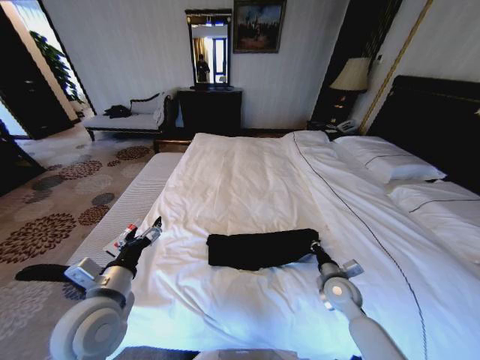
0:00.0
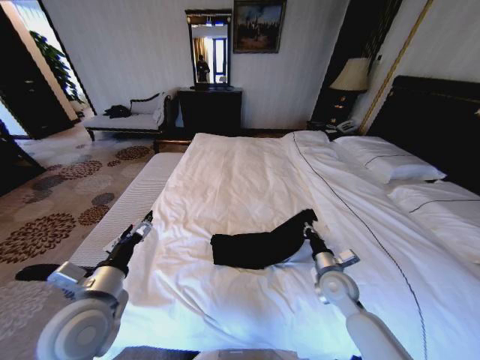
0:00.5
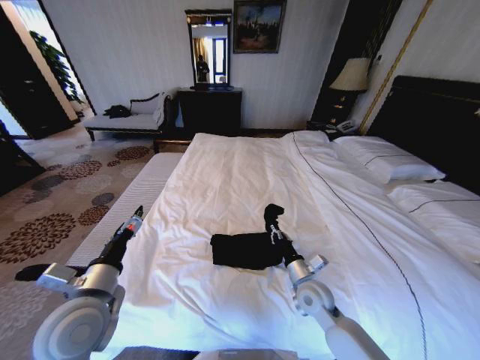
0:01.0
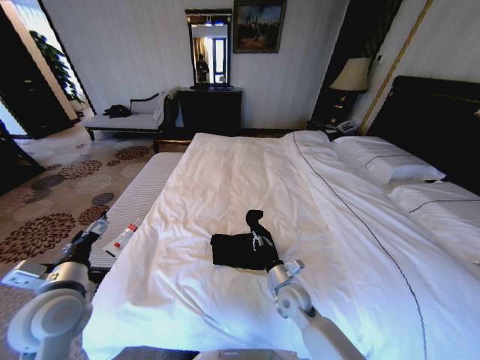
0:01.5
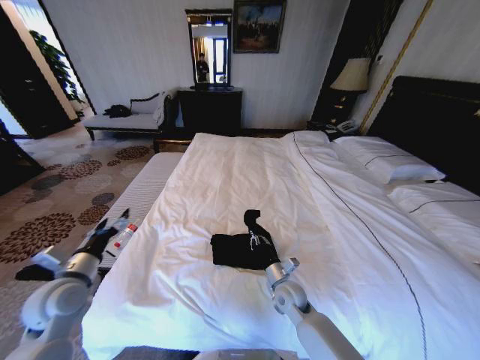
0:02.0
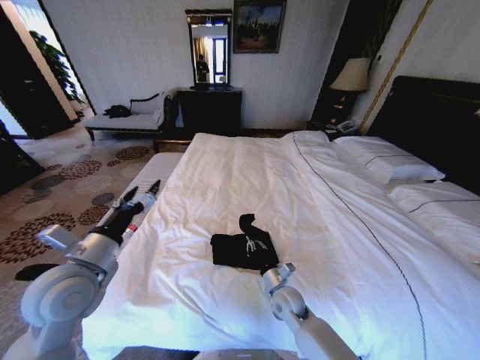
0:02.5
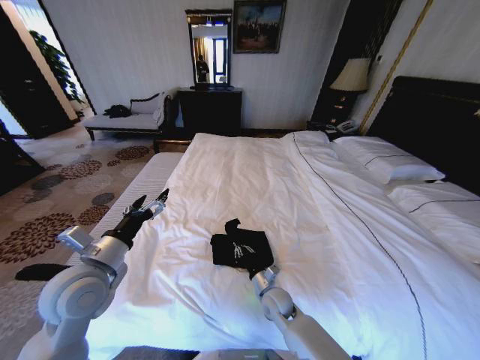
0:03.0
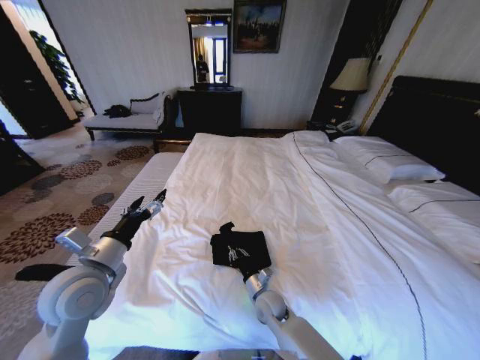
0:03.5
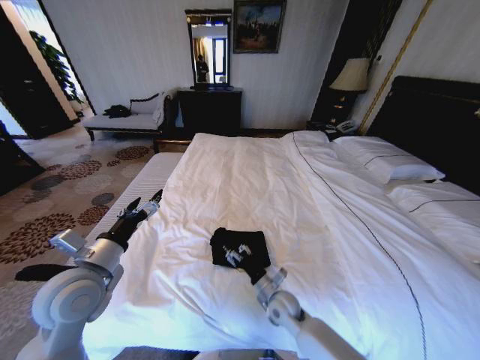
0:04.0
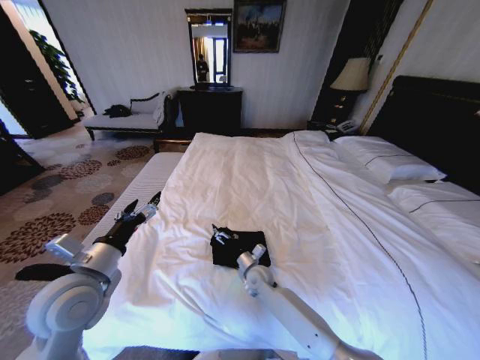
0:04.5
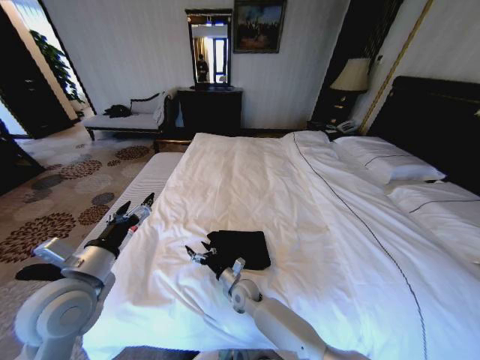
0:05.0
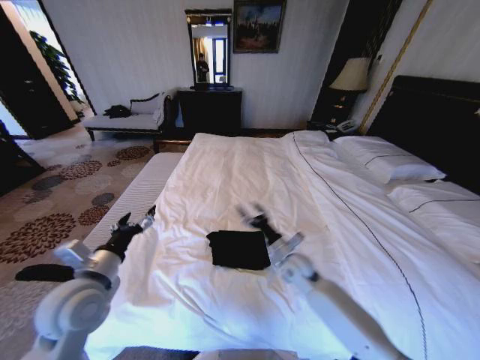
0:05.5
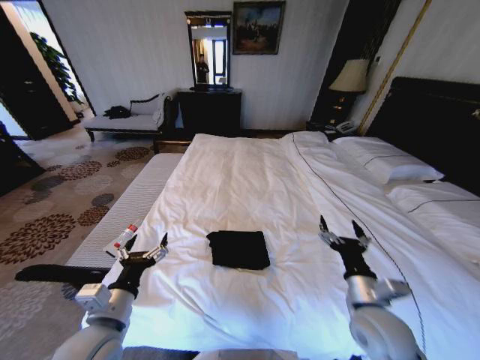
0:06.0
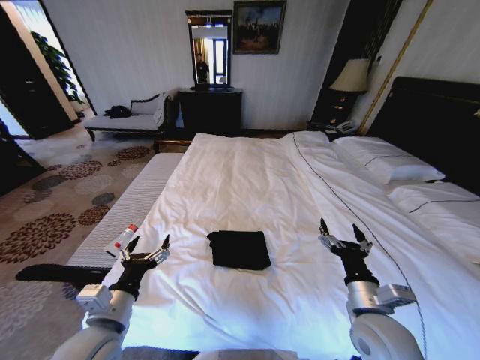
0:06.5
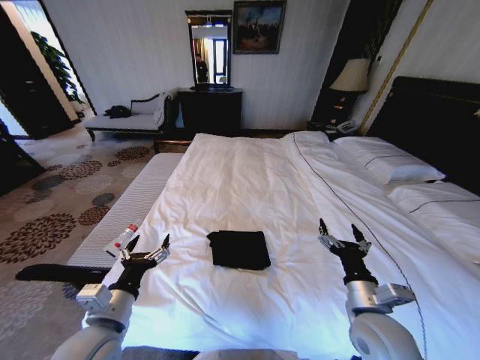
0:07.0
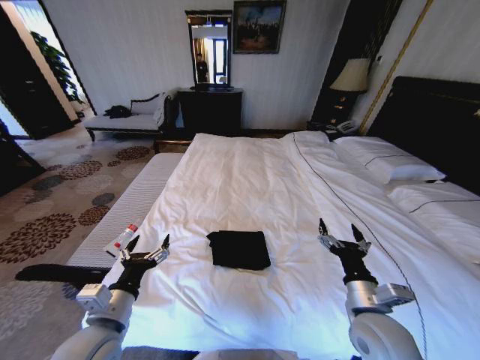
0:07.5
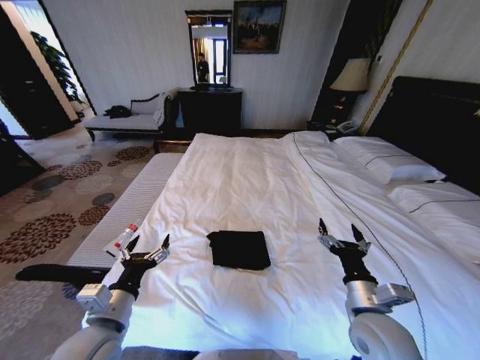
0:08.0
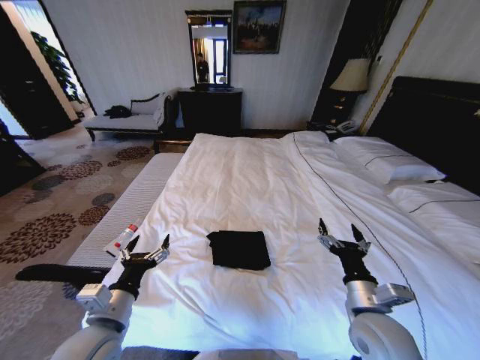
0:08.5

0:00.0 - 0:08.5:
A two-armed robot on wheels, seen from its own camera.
Task of the whole recording: Fold the clothes on the bed.
0:00.0 - 0:02.0: The left gripper travels to the left and forward by some 15 cm, while the right gripper heads to the left, covering roughly 15 cm.
0:02.0 - 0:04.0: The right gripper opens its fingers, while the left gripper moves to the right and upward, roughly 10 cm.
0:04.0 - 0:06.5: The right gripper heads upward, to the right and backward, covering roughly 25 cm, and opens up. Meanwhile the left gripper travels backward and downward by some 10 cm.
0:06.5 - 0:08.5: Both grippers stay about where they are.

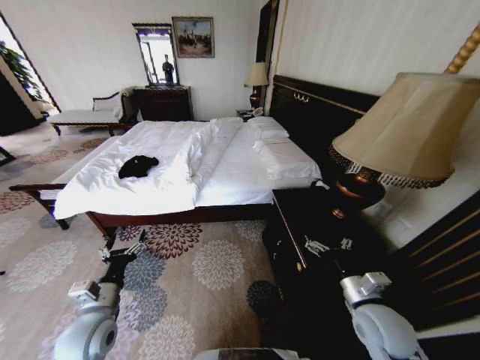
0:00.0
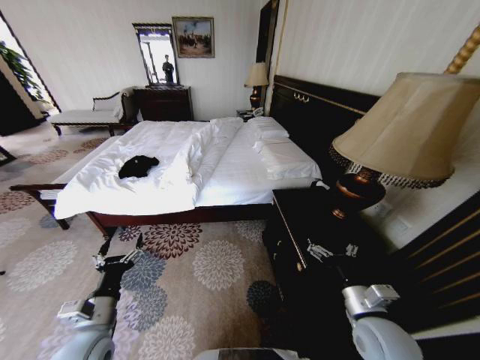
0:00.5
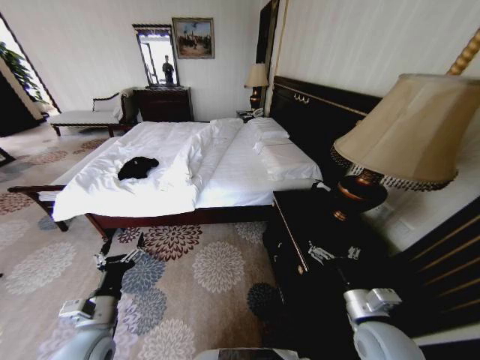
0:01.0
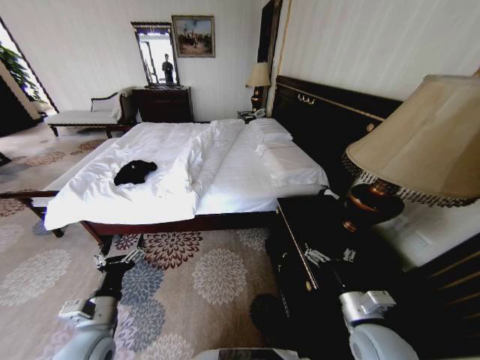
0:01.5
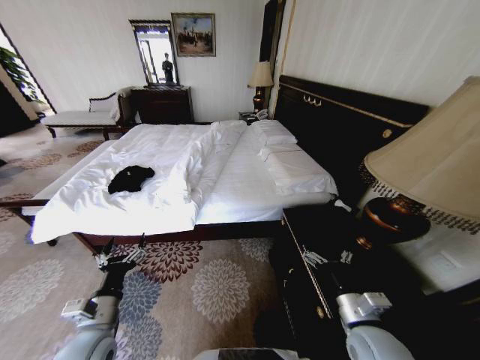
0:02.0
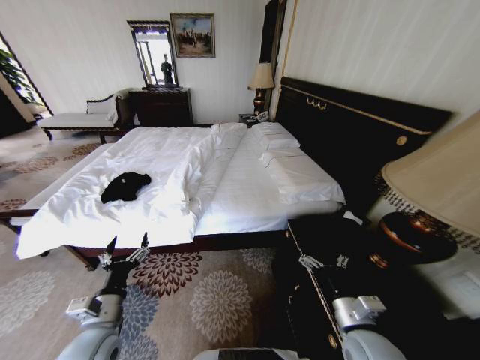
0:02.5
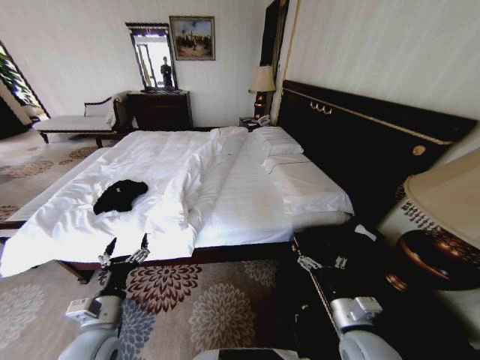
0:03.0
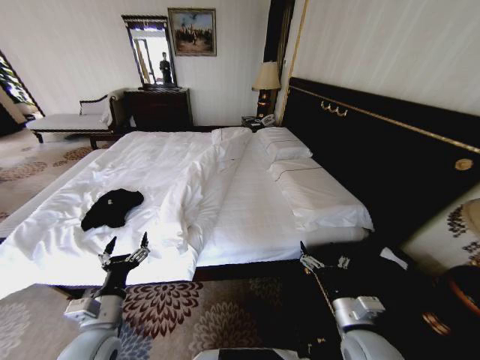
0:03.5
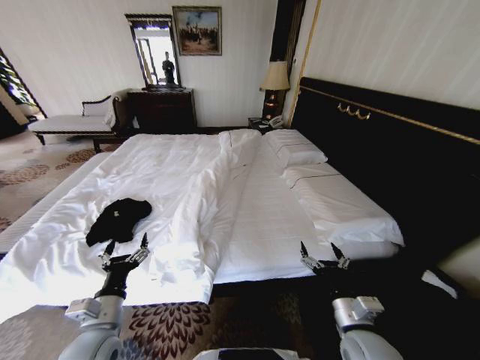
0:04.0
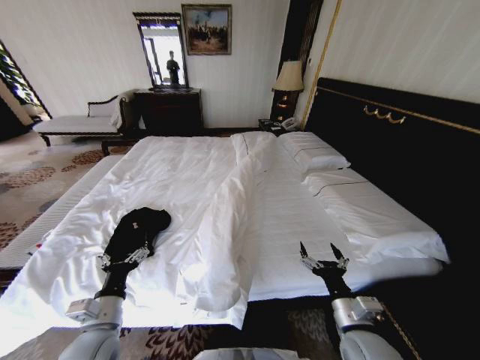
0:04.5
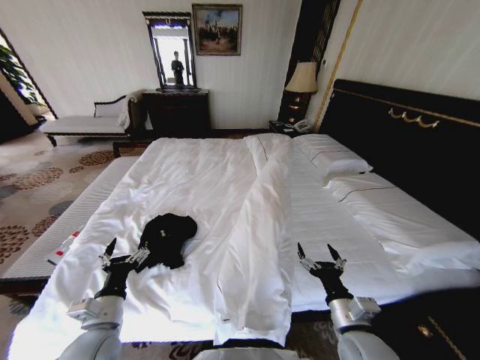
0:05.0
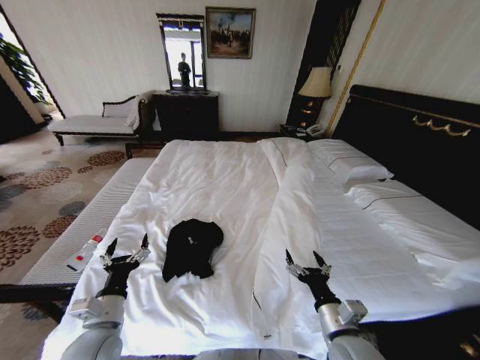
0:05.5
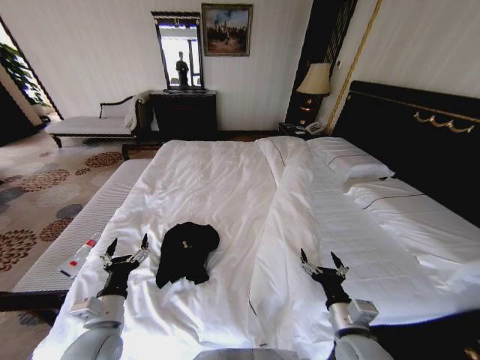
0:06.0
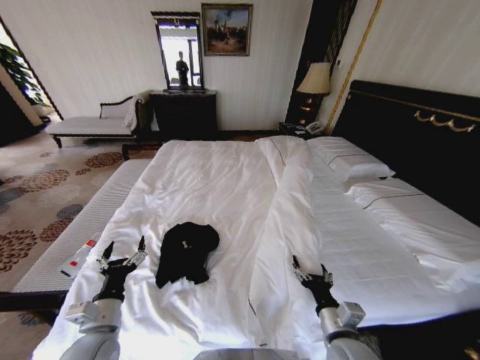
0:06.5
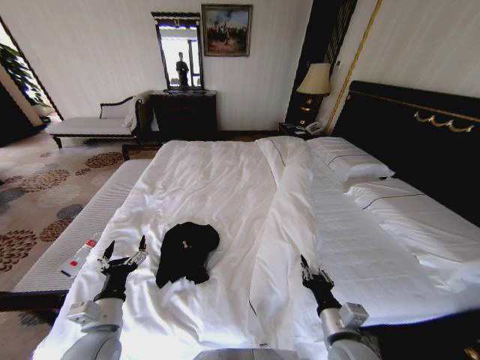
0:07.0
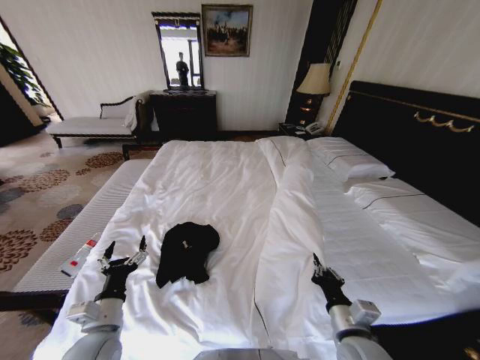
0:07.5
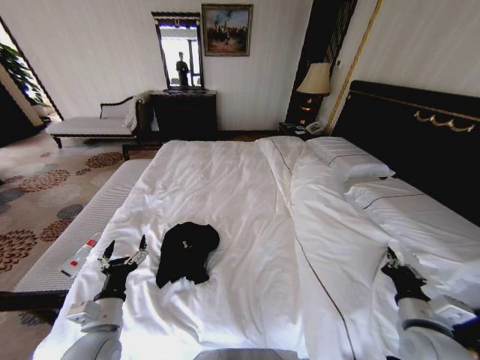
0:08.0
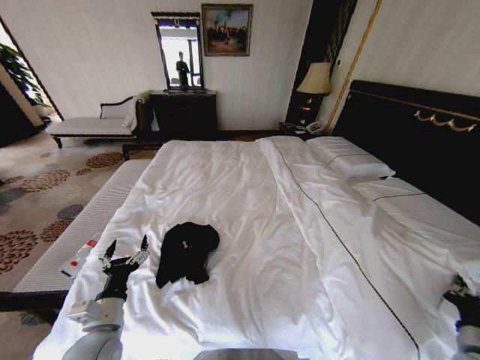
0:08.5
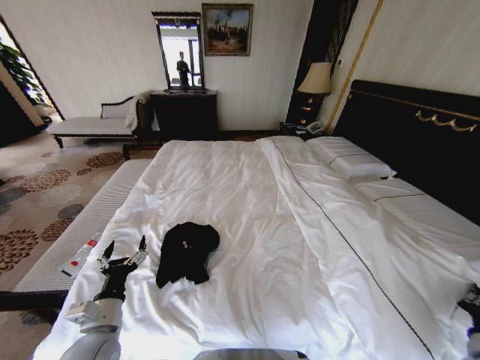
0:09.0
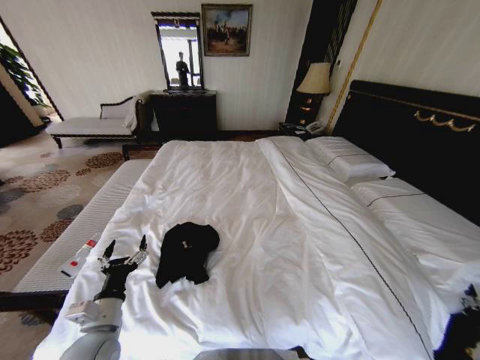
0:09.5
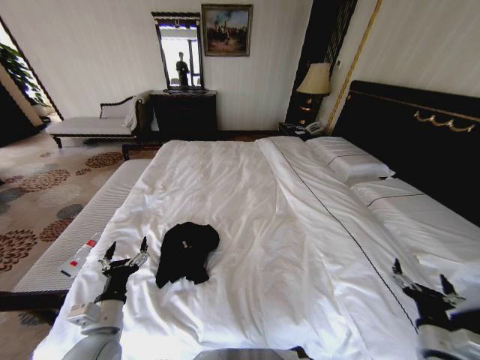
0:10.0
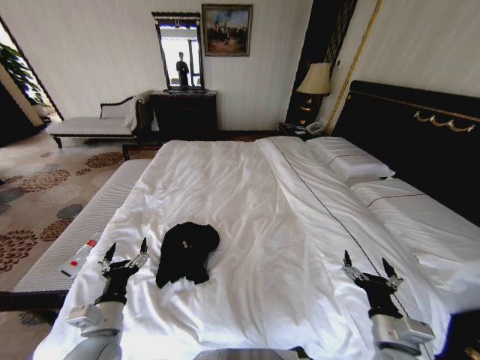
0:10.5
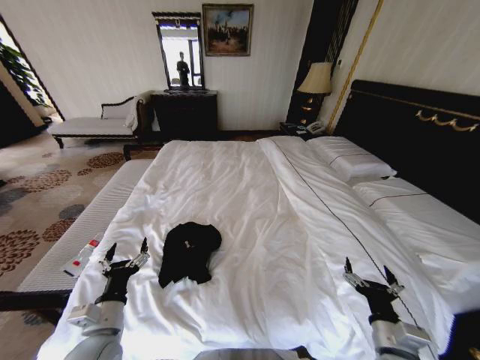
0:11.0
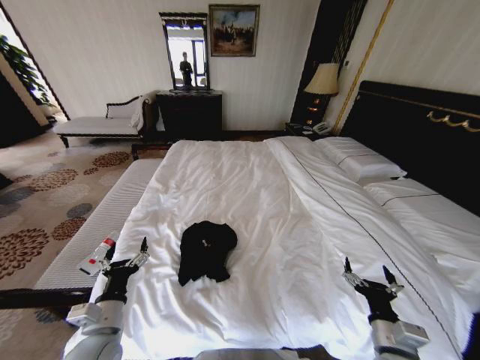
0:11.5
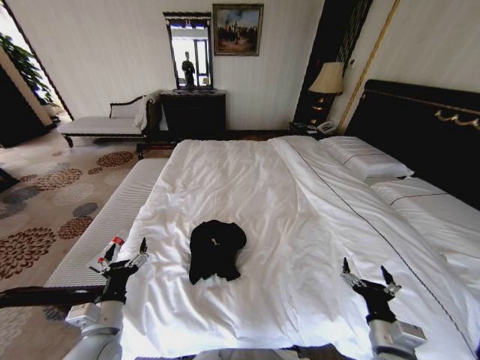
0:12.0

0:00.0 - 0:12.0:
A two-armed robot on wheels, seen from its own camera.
Task of the whole recording: Fold the clothes on the bed.
0:06.0 - 0:08.0: The right gripper shifts about 10 cm to the right, and closes its fingers.
0:08.0 - 0:10.0: The right gripper travels to the right by some 5 cm, and opens its fingers.
0:10.0 - 0:12.0: The right gripper heads to the left, covering roughly 10 cm.

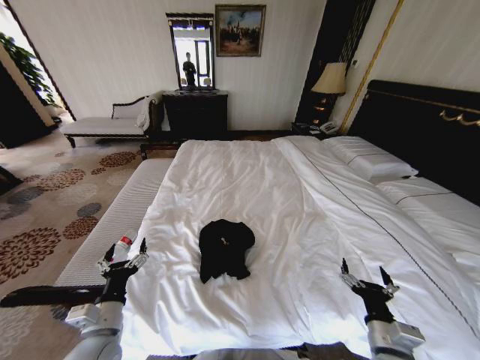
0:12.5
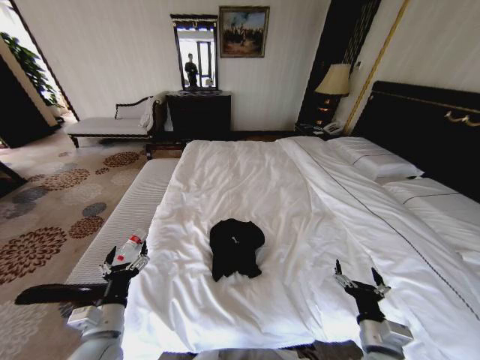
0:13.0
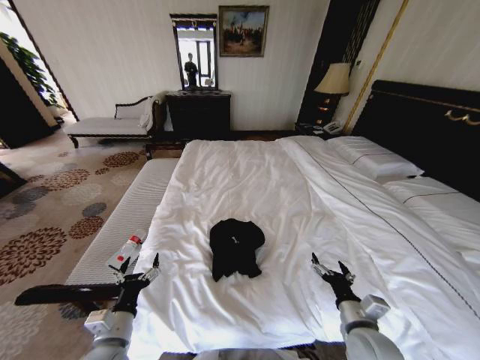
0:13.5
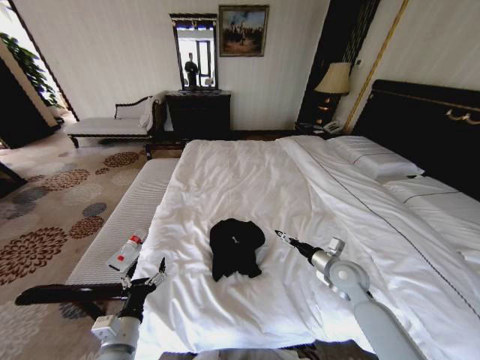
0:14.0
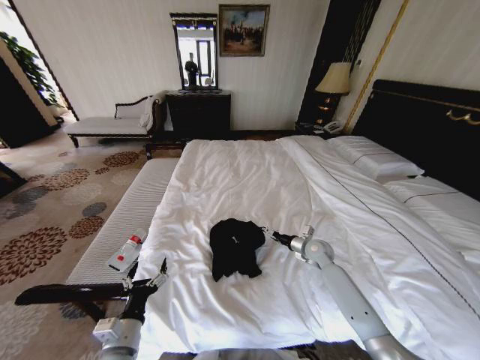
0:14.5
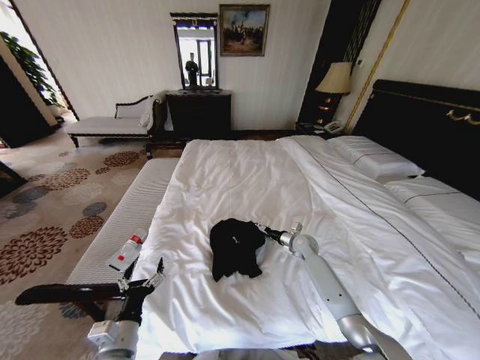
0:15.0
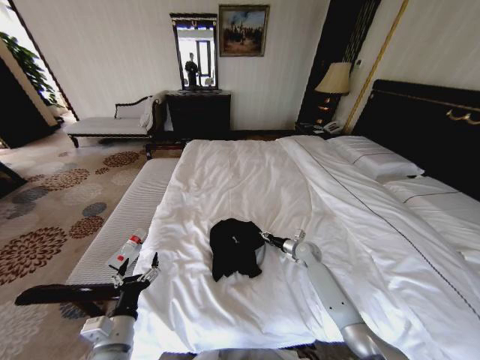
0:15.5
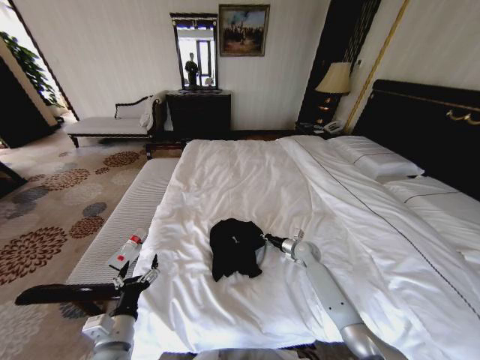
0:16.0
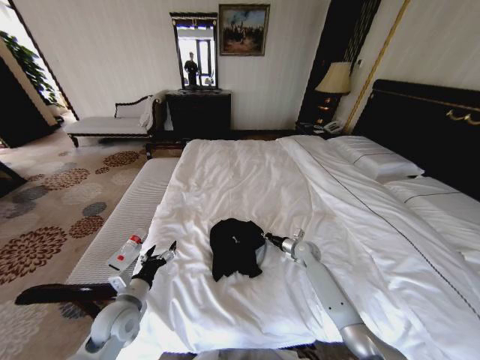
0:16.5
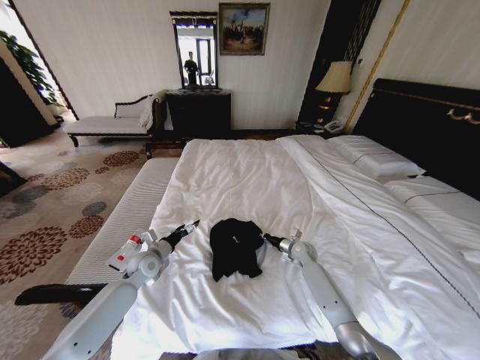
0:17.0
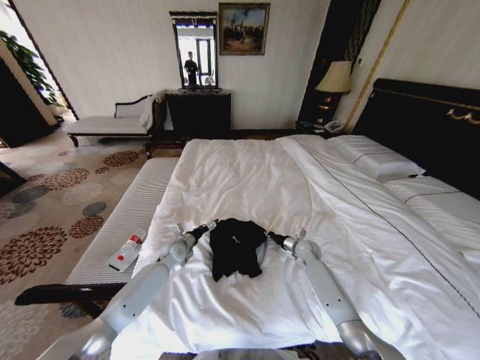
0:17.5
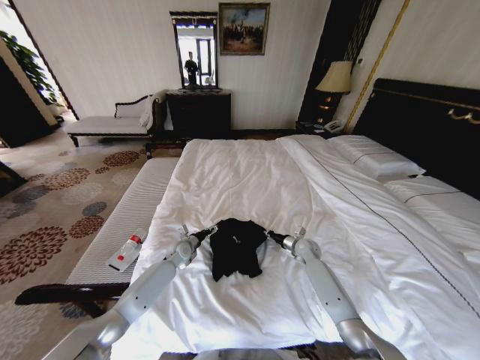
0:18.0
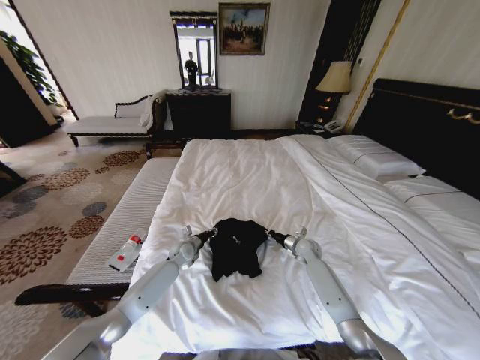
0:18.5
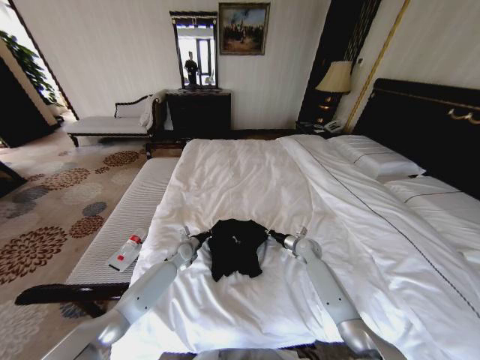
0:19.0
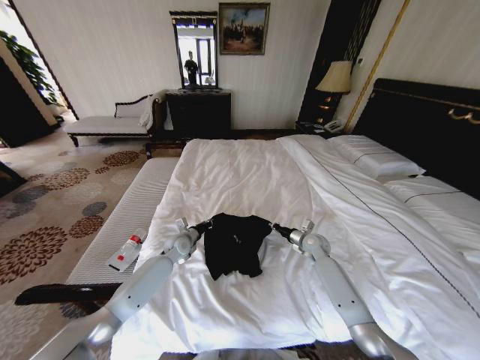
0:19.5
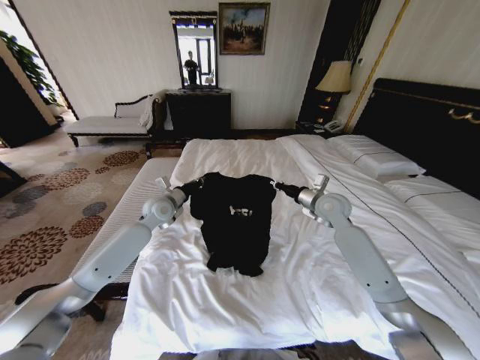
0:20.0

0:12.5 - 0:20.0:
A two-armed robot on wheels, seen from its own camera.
Task of the whole recording: Fold the clothes on the bed.
0:12.5 - 0:14.5: The left gripper changes place by about 5 cm. Meanwhile the right gripper travels forward by approximately 30 cm.
0:14.5 - 0:16.5: The right gripper shifts by roughly 5 cm, and closes up; the left gripper shifts some 10 cm forward.
0:16.5 - 0:18.0: The left gripper heads forward, covering some 25 cm.
0:18.0 - 0:20.0: The grippers both shift upward by roughly 20 cm. The left gripper closes its fingers.
